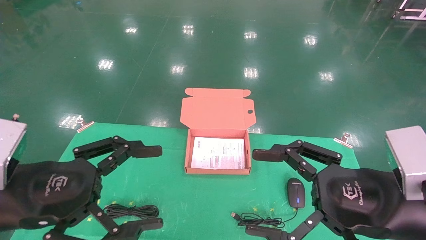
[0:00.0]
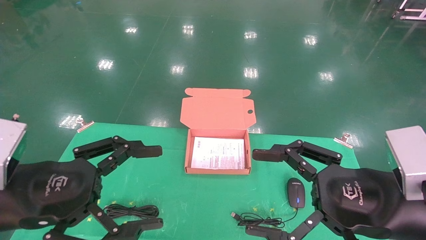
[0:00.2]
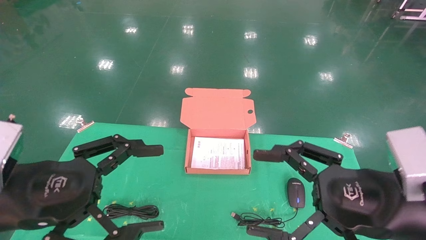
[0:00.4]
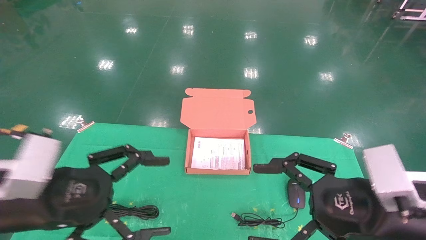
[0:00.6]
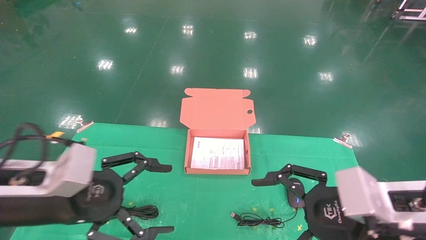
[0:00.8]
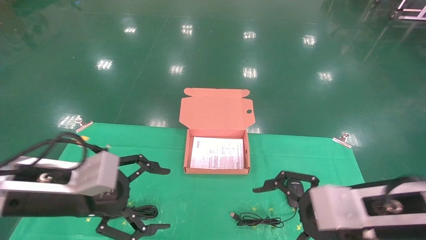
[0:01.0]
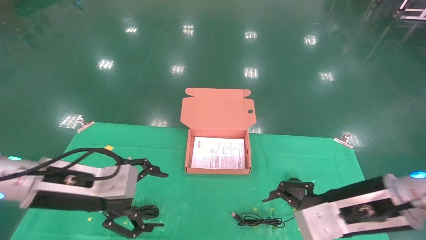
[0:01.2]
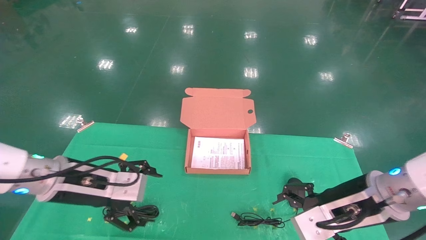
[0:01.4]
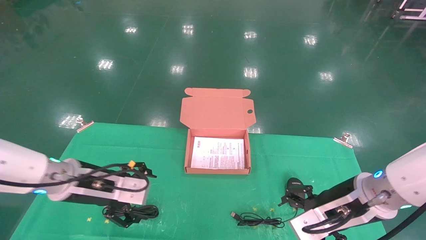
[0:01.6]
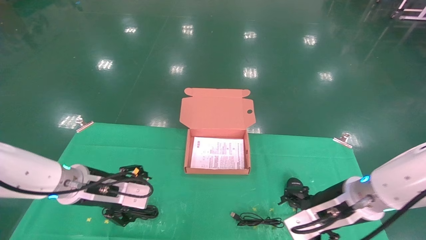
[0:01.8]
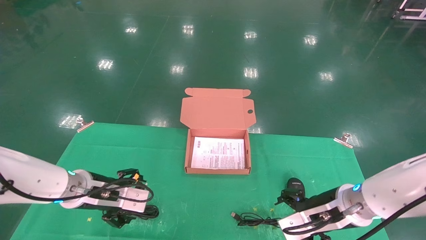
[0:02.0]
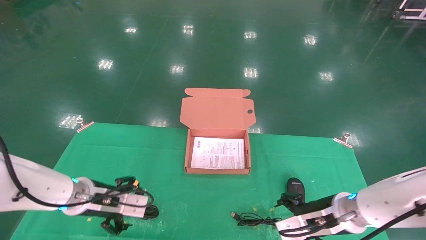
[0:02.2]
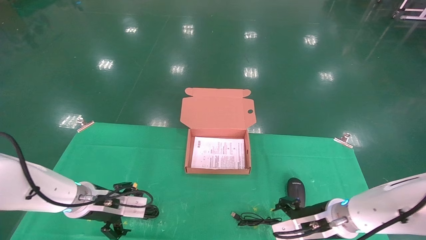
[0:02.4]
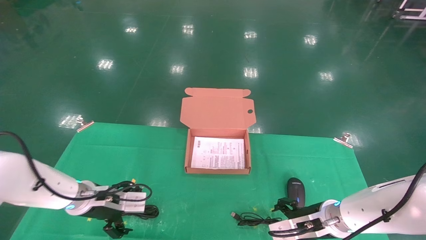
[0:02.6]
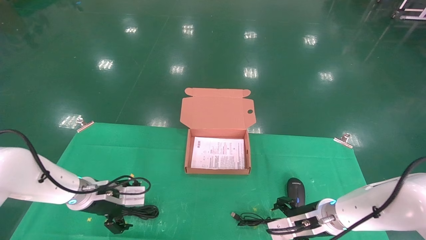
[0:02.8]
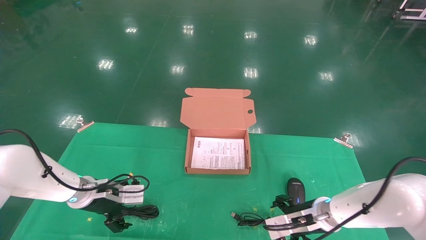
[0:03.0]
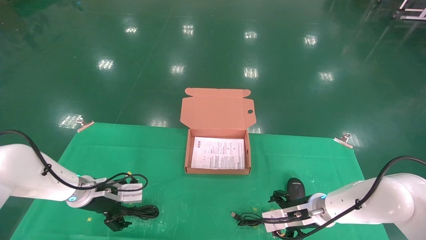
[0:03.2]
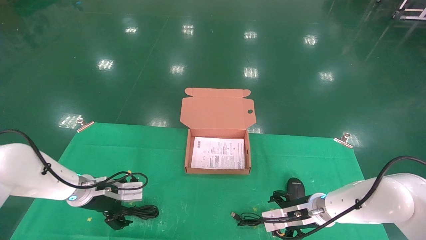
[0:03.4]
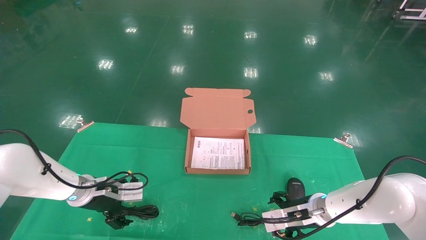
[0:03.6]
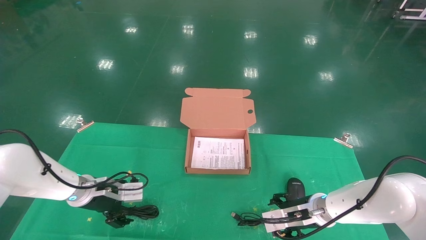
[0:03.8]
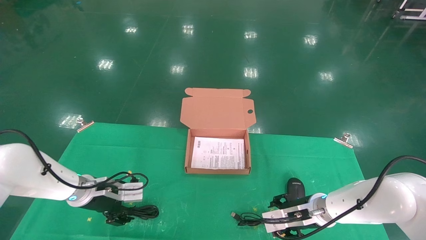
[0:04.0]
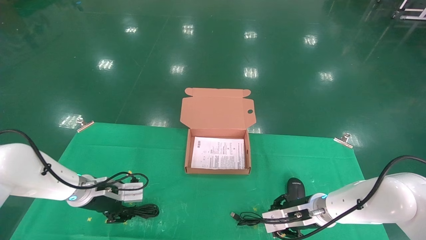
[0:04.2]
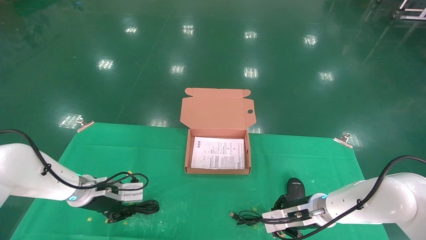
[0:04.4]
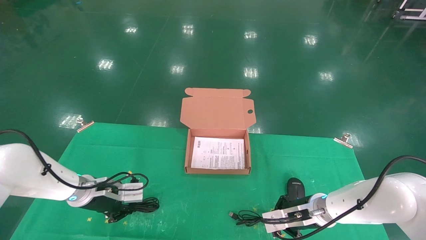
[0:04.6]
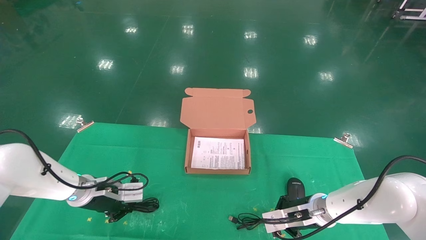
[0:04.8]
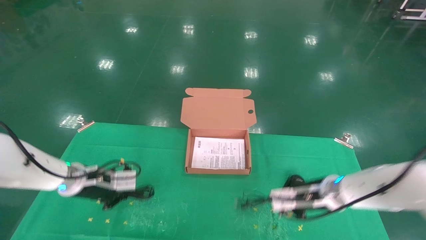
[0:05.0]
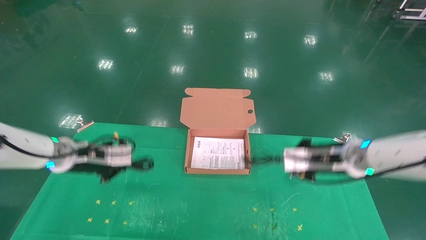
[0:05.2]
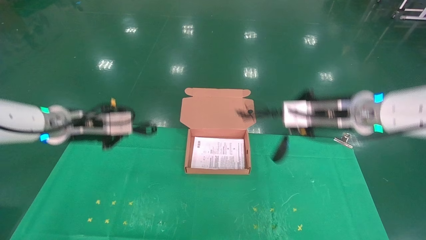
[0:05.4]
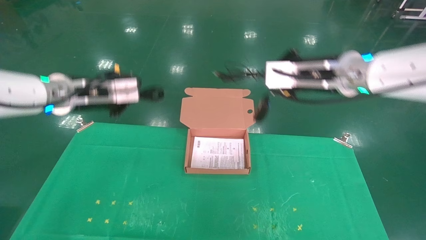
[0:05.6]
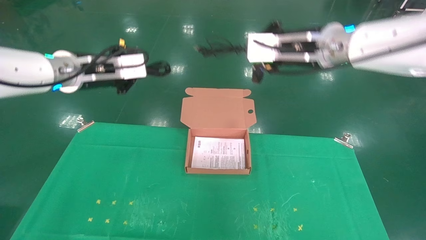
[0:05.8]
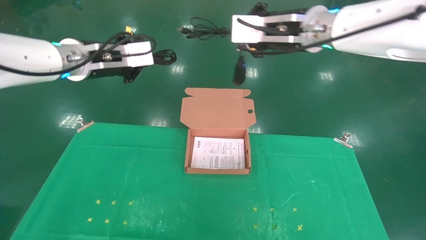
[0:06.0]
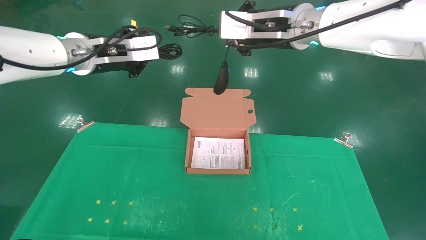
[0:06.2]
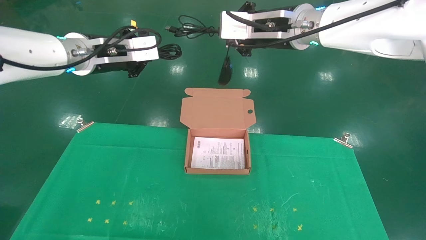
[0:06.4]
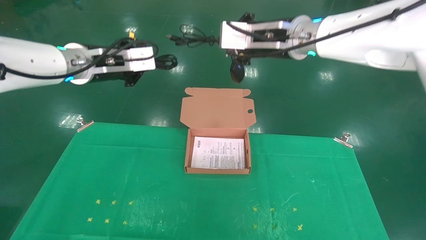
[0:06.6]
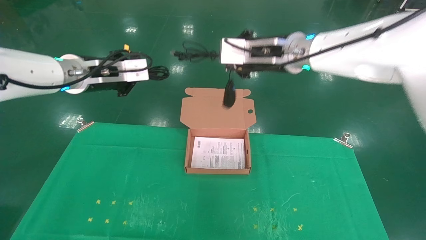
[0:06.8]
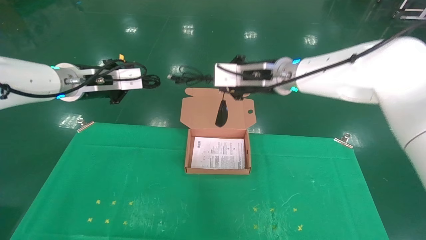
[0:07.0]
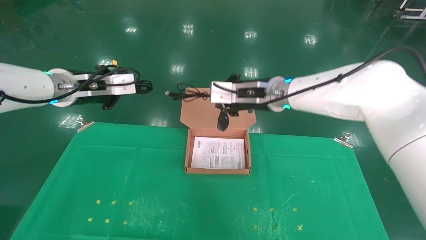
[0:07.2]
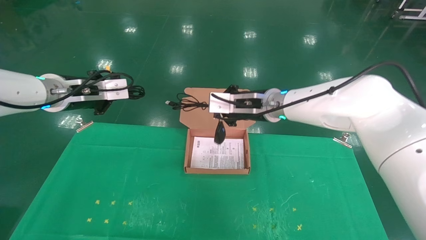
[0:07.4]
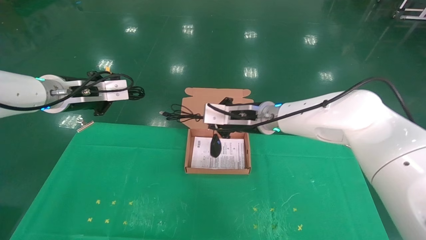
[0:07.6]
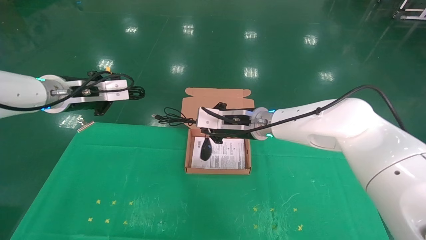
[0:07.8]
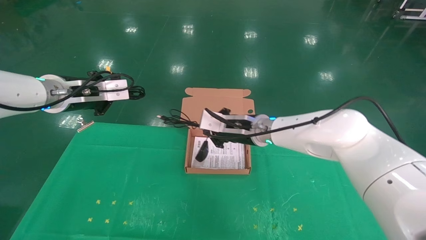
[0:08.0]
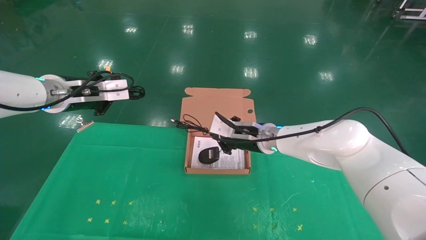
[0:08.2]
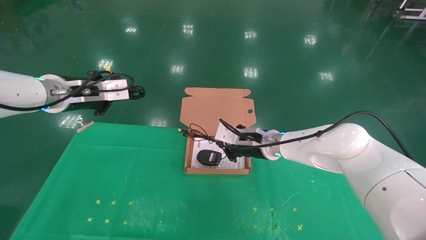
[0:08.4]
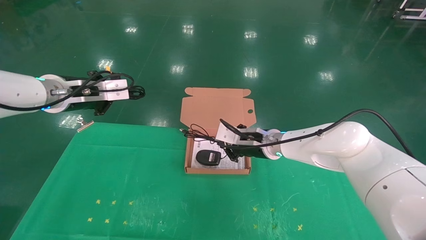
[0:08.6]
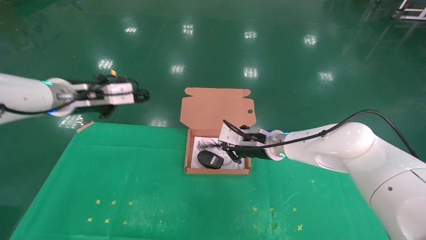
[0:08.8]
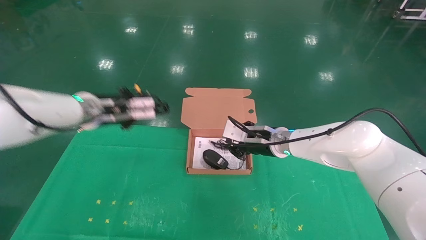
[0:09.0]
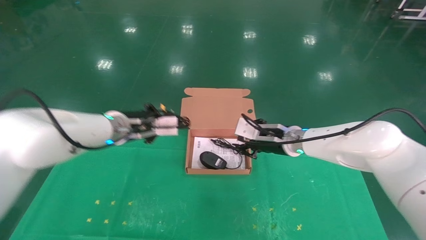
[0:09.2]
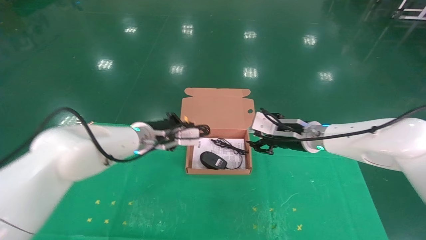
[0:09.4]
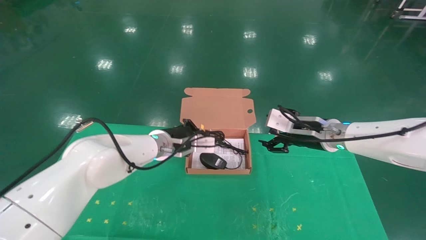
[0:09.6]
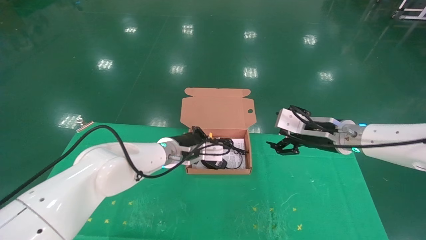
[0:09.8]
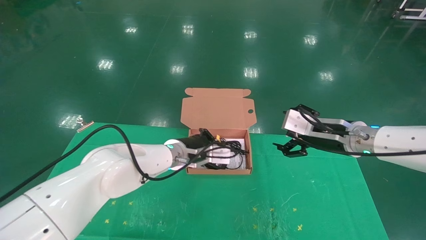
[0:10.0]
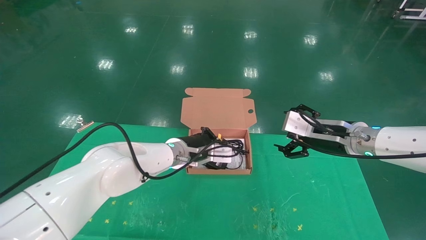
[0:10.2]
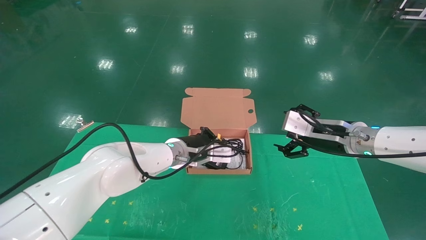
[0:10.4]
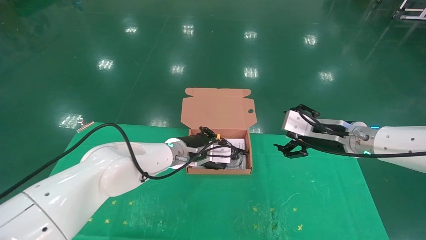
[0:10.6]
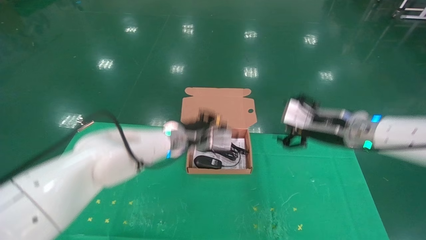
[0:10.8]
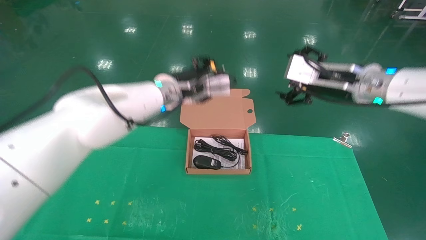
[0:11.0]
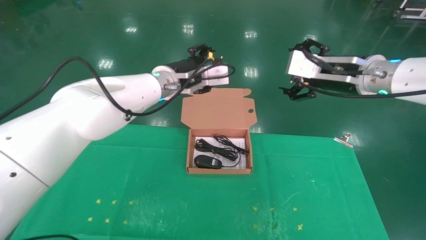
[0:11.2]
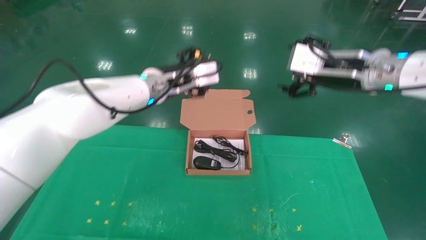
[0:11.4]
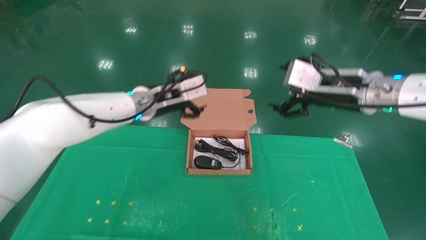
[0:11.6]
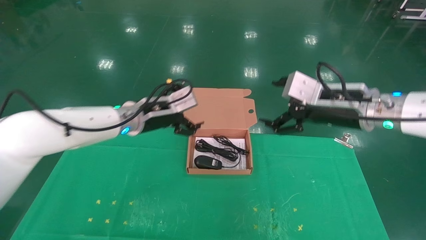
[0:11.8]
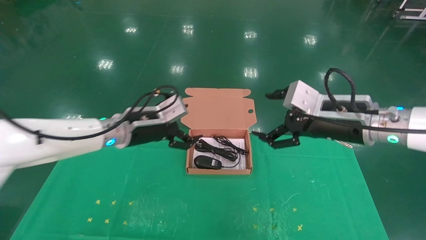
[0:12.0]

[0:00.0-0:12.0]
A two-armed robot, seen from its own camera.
Task of the whole recording: grasp data cable left put into box grasp mouse right put into box.
Step, 0:00.6 to 0:04.6: Grab and pick up both the mouse and power cord from the accessory packaging area at the same time.
Step, 0:04.8 to 0:10.2: Place the mouse and power cord into the box.
0:00.0 to 0:01.6: The two grippers go some 15 cm forward and downward.
0:01.6 to 0:03.0: The left gripper heads forward and downward, covering approximately 15 cm. Meanwhile the right gripper goes roughly 15 cm downward and forward.
0:03.0 to 0:04.4: The left gripper closes its fingers, while the right gripper closes up.
0:04.4 to 0:06.0: The grippers both shift upward by approximately 35 cm. The left gripper closes up.
0:06.0 to 0:07.6: The right gripper heads downward, covering roughly 15 cm, while the left gripper goes about 10 cm to the left and downward.
0:07.6 to 0:09.0: The left gripper heads to the right and downward, covering roughly 10 cm; the right gripper heads downward and to the right, covering some 10 cm.
0:09.0 to 0:10.4: The left gripper heads to the right and downward, covering roughly 20 cm. The right gripper moves to the right and backward, about 15 cm, and opens.
0:10.4 to 0:12.0: The left gripper heads to the left and upward, covering some 15 cm, and opens its fingers; the right gripper is displaced backward by approximately 5 cm.
